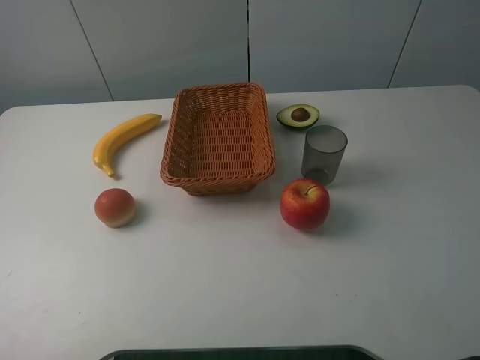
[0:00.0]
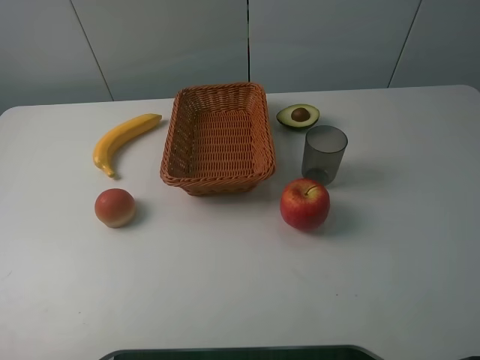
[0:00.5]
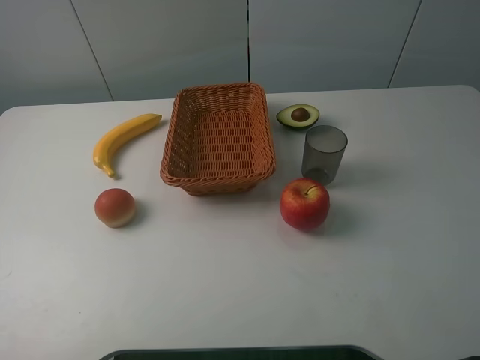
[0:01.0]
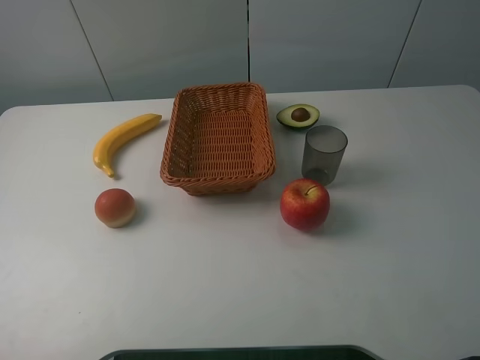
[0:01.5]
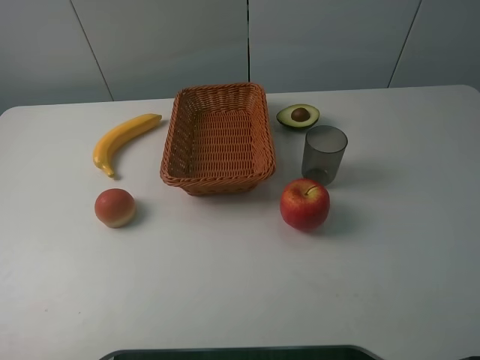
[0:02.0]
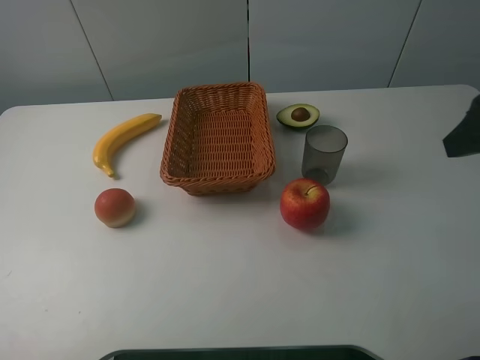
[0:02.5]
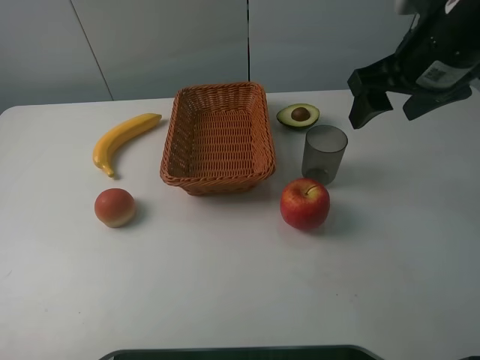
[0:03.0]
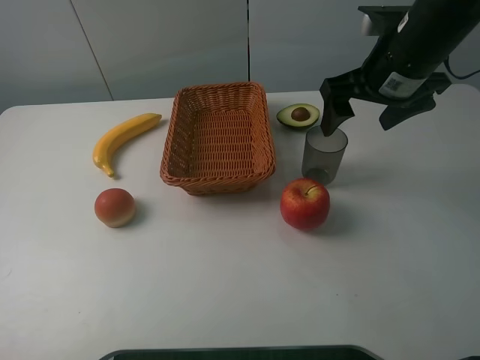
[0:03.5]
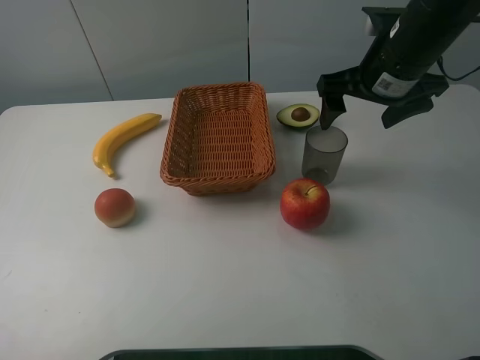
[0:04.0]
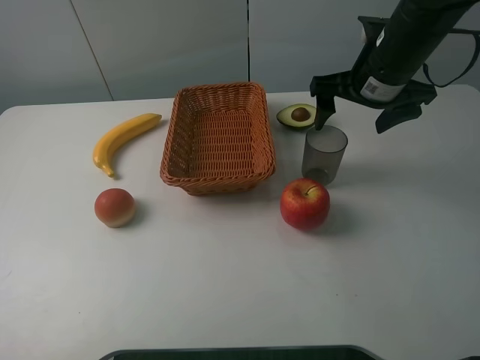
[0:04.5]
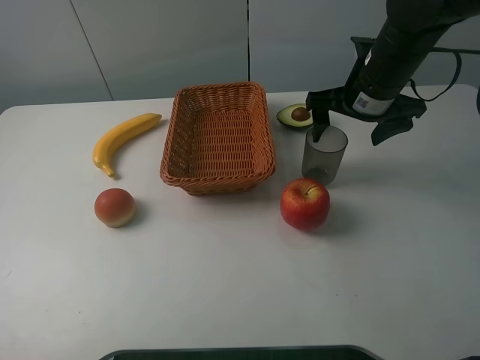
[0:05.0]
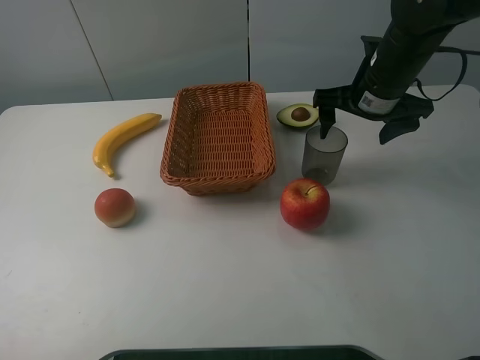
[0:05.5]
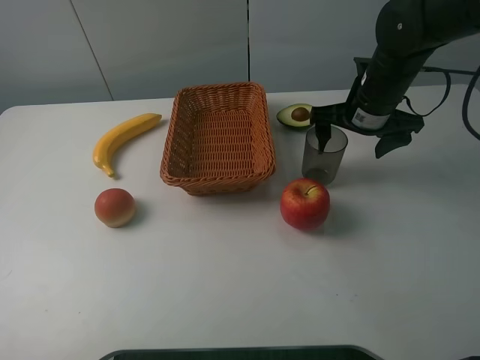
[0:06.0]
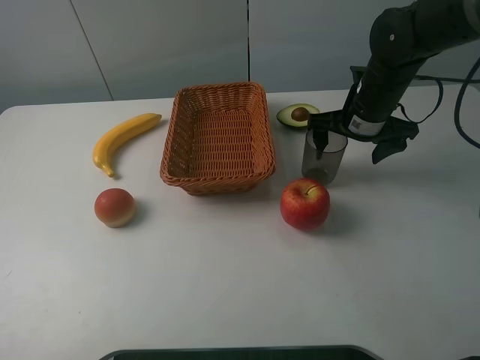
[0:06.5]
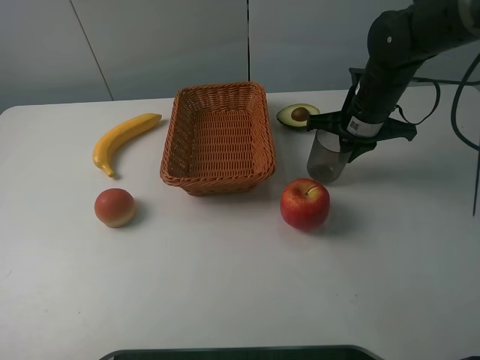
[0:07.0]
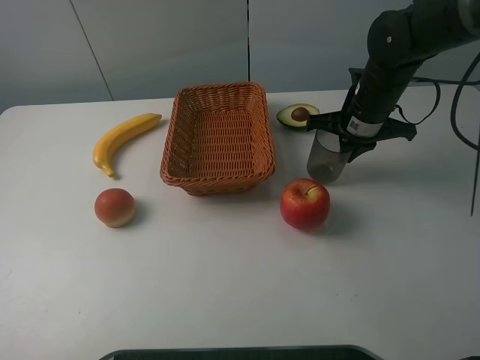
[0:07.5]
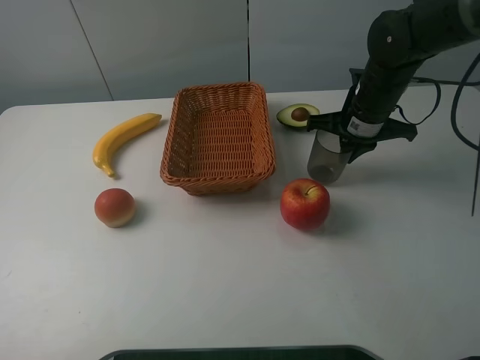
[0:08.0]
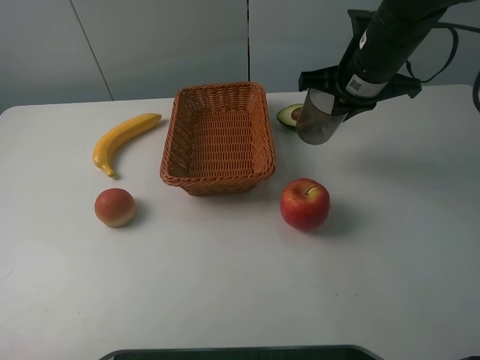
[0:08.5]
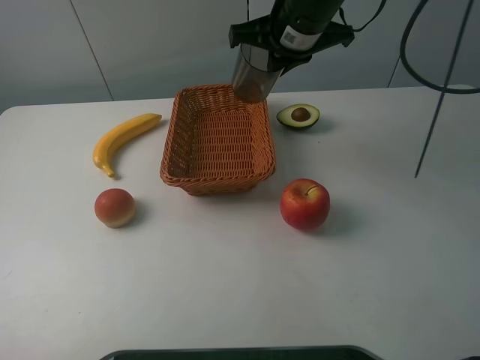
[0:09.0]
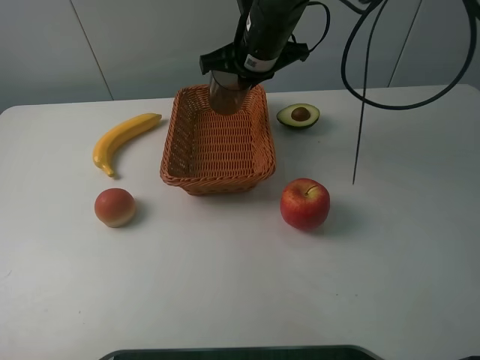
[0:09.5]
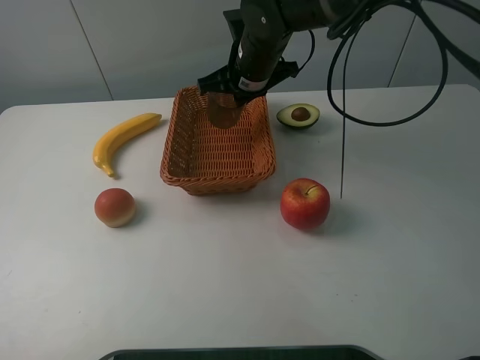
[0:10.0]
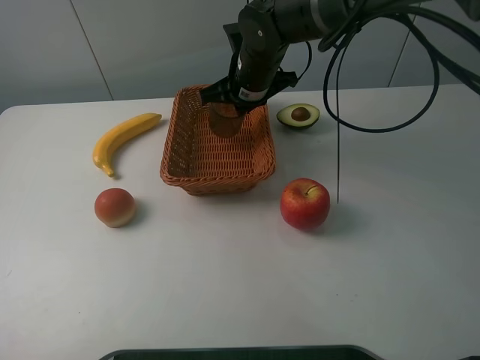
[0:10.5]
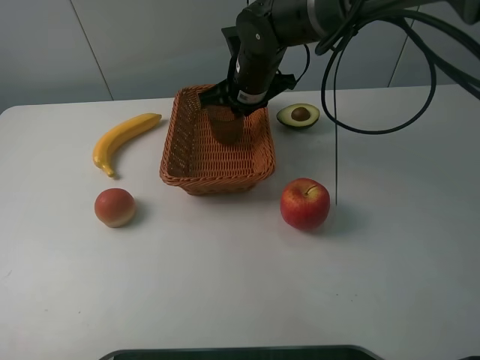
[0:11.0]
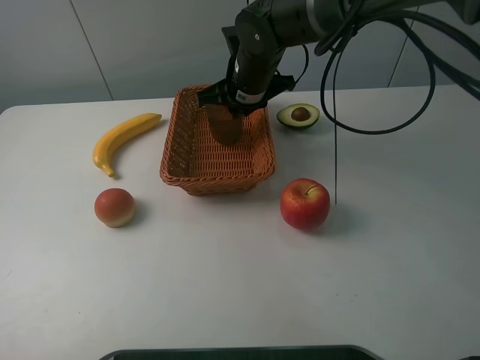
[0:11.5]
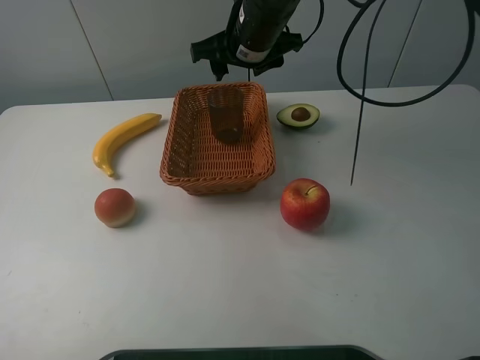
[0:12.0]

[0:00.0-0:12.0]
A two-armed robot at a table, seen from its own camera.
0:02.0 to 0:04.0: The right gripper moves forward and to the left, about 30 cm.
0:04.0 to 0:06.0: The right gripper goes approximately 5 cm downward.
0:06.0 to 0:08.0: The right gripper closes.
0:08.0 to 0:10.0: The right gripper is displaced to the left by about 15 cm.
0:10.0 to 0:12.0: The right gripper heads upward, covering some 5 cm, and opens its fingers.

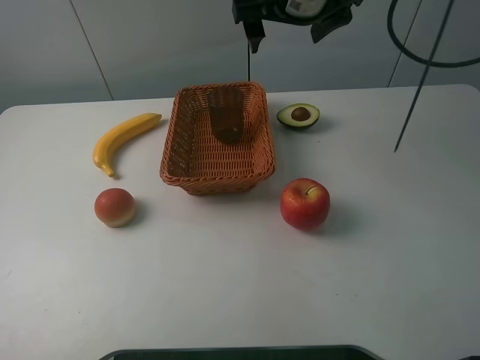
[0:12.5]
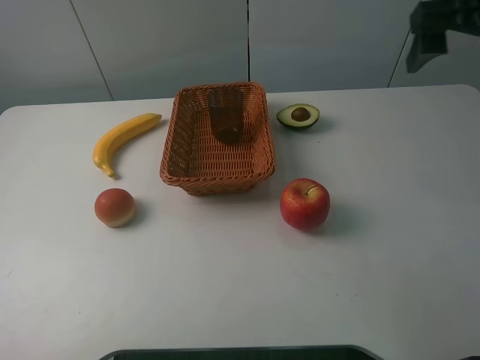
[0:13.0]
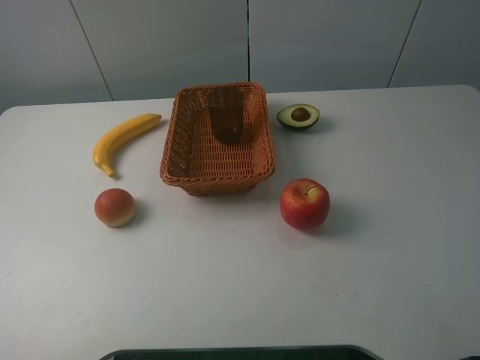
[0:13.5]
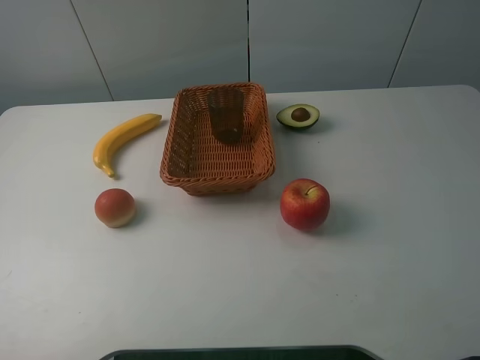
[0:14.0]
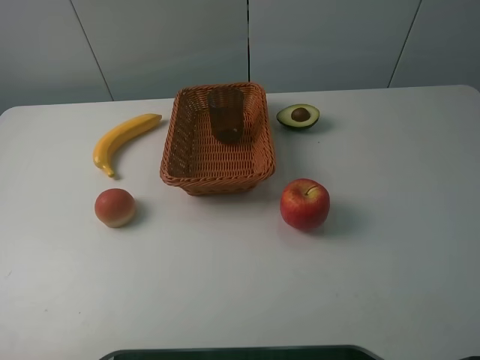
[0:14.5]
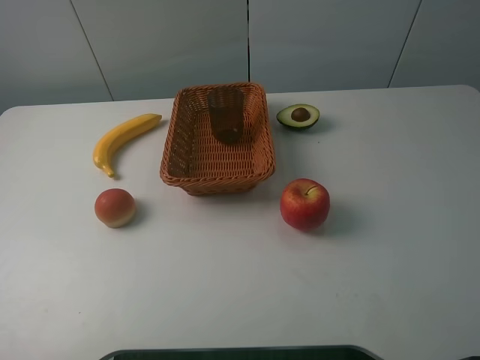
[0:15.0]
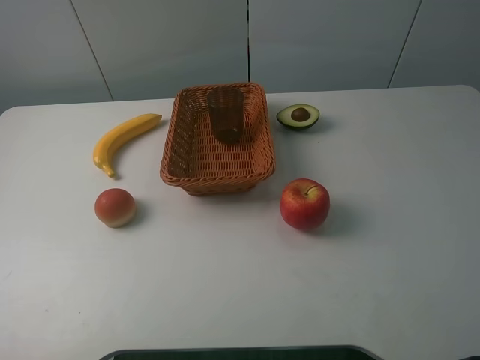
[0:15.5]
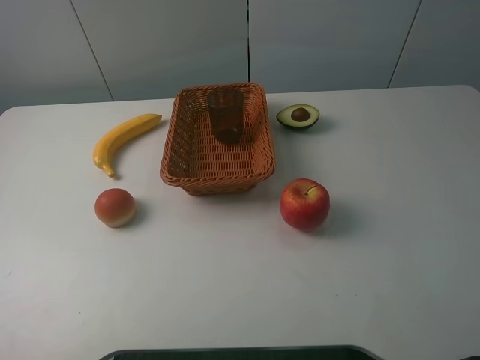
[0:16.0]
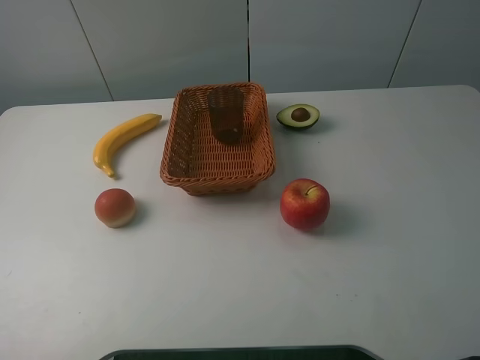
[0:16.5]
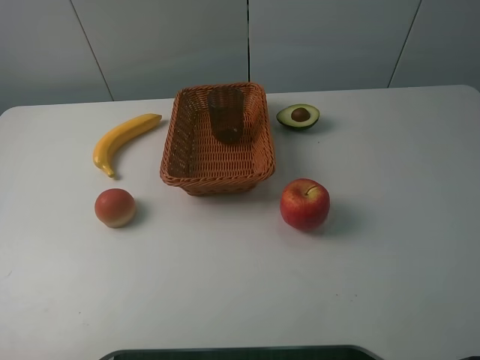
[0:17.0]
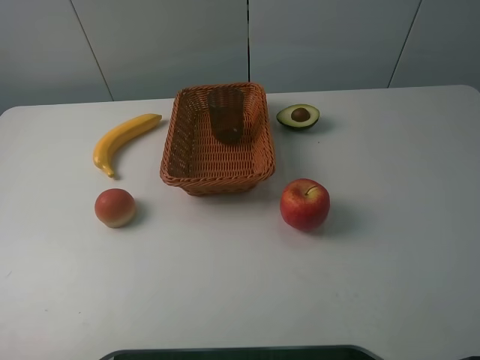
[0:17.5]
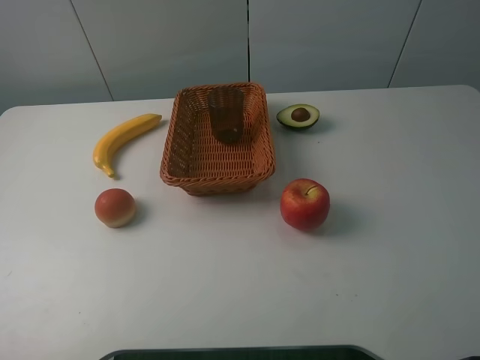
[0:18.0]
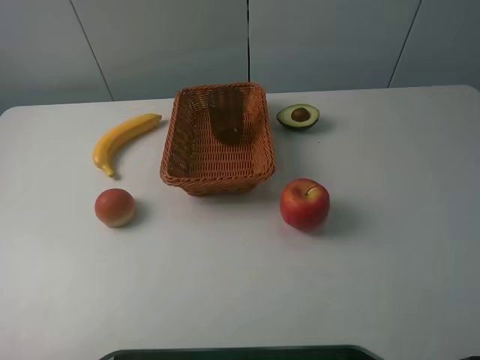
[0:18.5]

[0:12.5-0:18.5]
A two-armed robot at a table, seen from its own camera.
0:12.5 to 0:14.5: The right gripper shifts roughly 40 cm backward and to the right.
